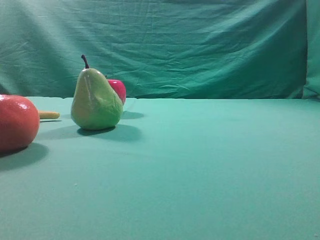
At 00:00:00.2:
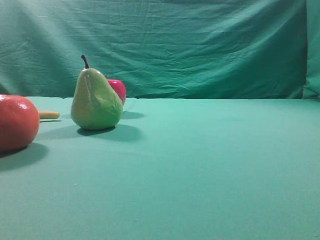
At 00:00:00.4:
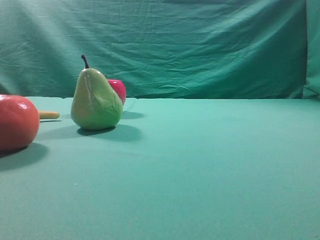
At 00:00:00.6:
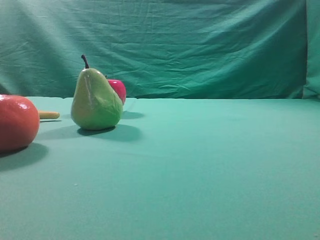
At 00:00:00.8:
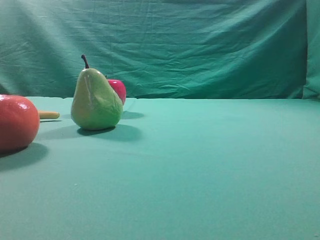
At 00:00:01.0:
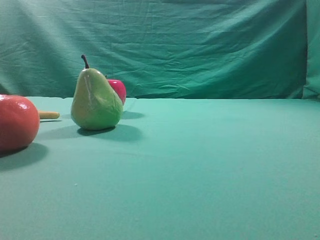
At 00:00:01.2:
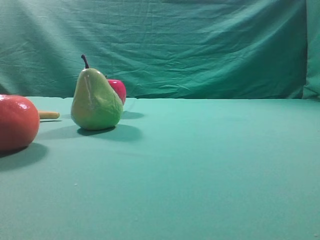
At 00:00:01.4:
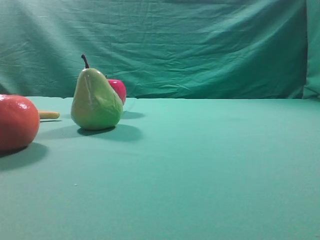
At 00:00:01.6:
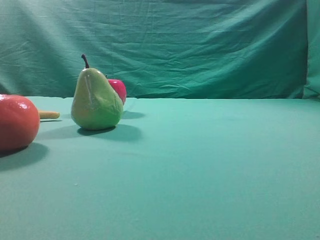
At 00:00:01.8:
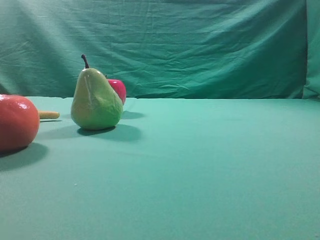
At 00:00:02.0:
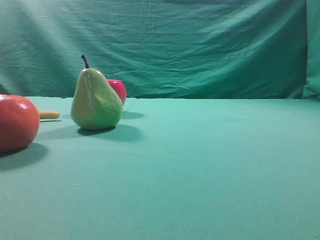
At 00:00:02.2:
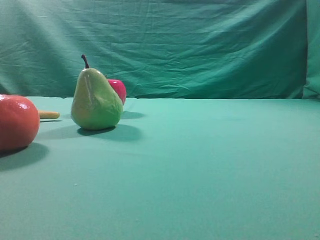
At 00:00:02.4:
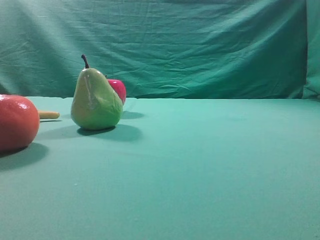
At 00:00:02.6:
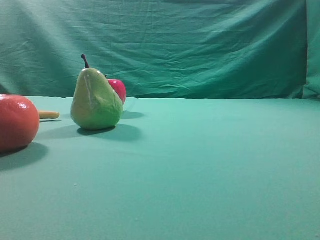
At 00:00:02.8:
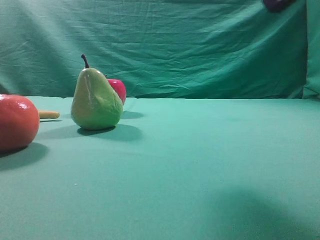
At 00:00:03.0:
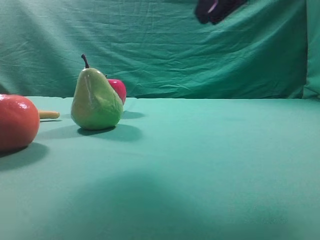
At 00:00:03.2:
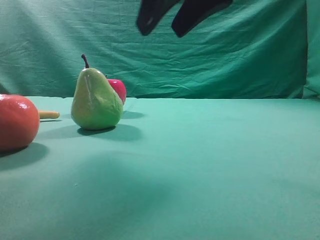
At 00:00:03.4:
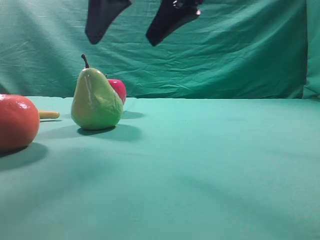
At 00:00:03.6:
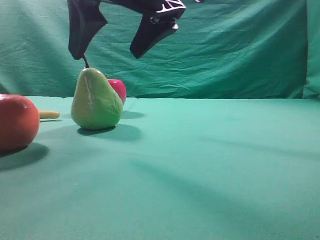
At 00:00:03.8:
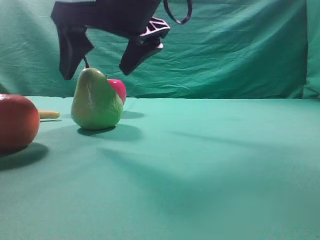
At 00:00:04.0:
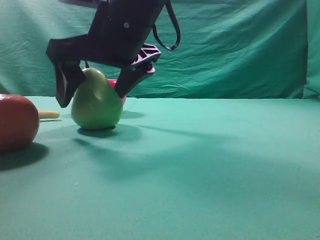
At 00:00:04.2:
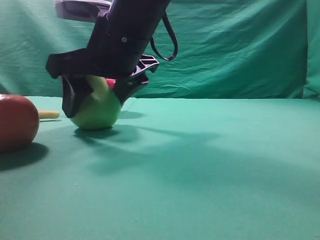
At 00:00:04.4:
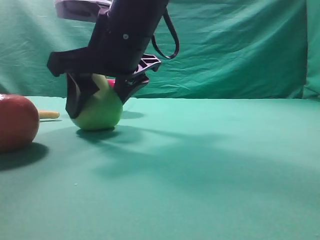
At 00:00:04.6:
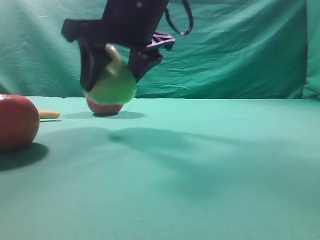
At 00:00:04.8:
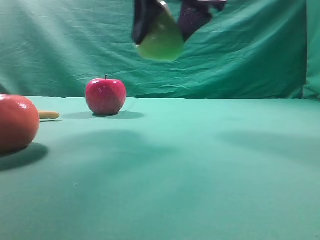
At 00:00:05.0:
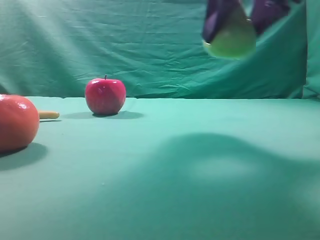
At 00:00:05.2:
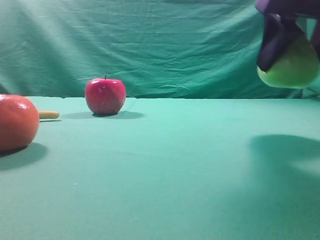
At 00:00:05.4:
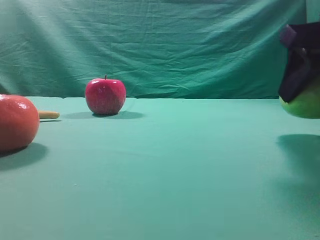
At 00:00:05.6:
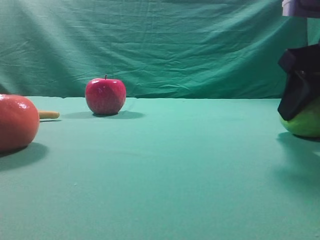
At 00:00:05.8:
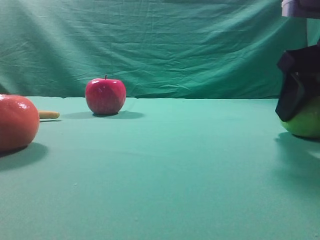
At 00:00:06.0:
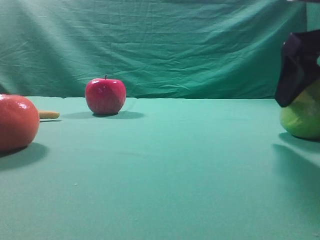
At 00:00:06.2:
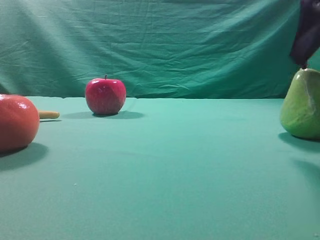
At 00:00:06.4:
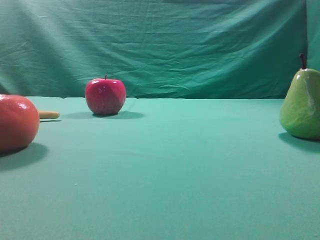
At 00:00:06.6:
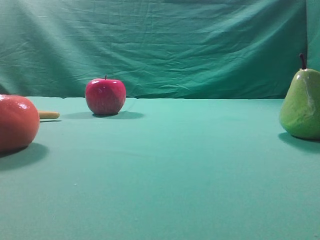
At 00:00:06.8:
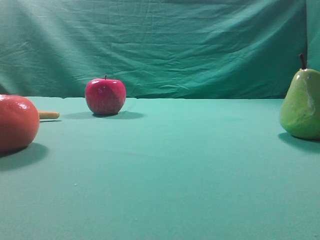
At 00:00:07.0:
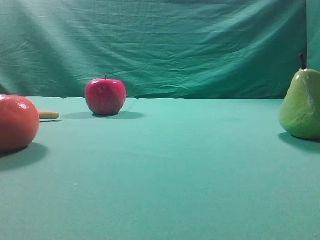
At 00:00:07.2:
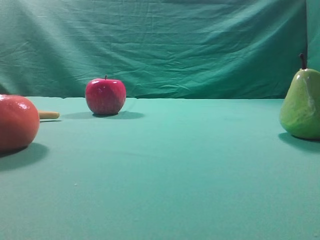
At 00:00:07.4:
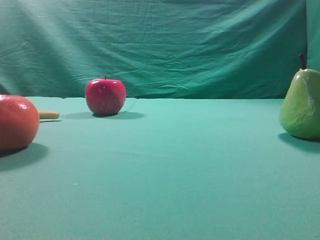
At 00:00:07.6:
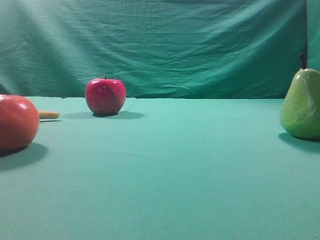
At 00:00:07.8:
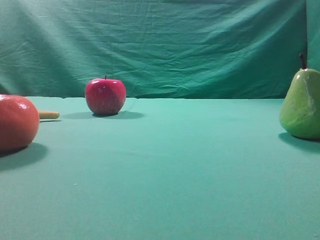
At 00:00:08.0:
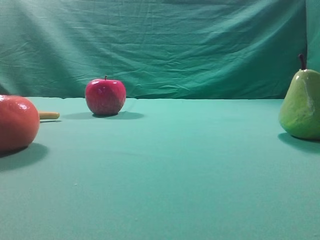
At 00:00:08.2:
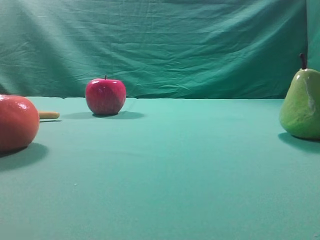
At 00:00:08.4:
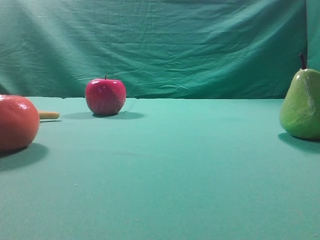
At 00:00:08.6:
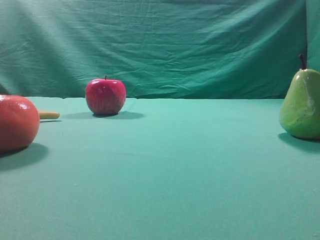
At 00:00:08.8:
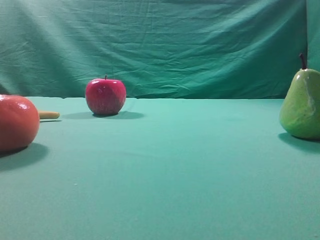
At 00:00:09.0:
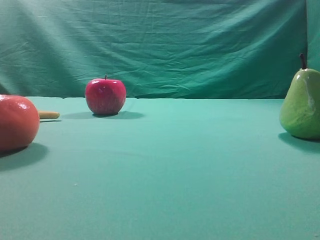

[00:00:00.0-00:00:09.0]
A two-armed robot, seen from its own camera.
Task of the whole recording: Grasp the pear and place it on one side of the table.
Step, 00:00:00.0 to 00:00:04.6: Grasp the high-fiber fruit.
Step, 00:00:04.8 to 00:00:06.2: Place it on the right side of the table.
